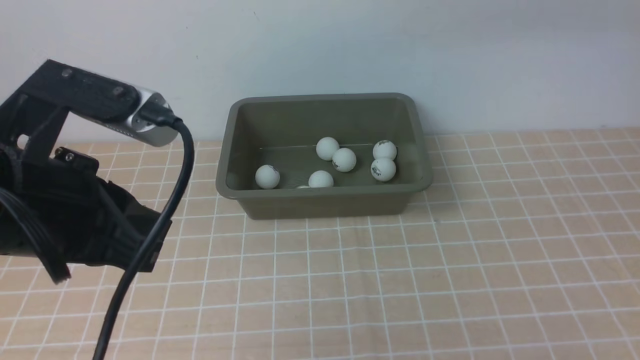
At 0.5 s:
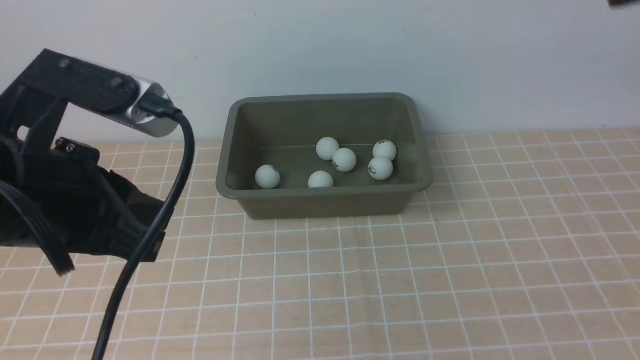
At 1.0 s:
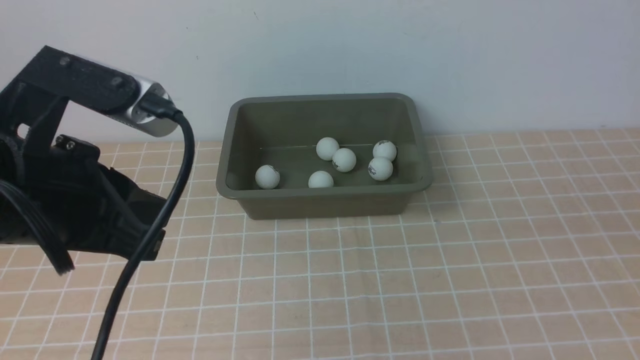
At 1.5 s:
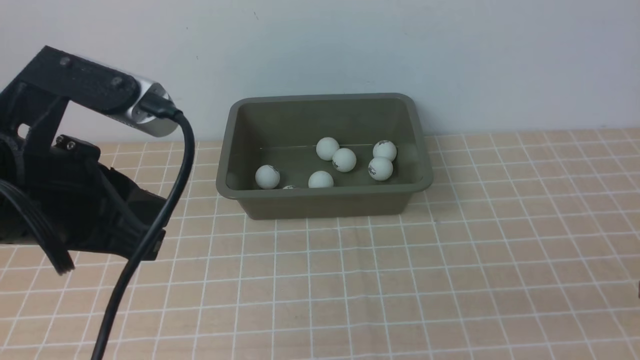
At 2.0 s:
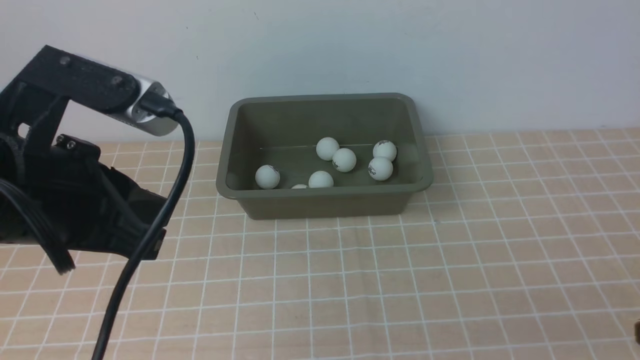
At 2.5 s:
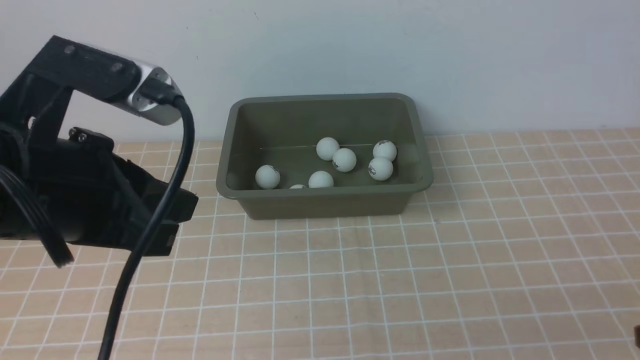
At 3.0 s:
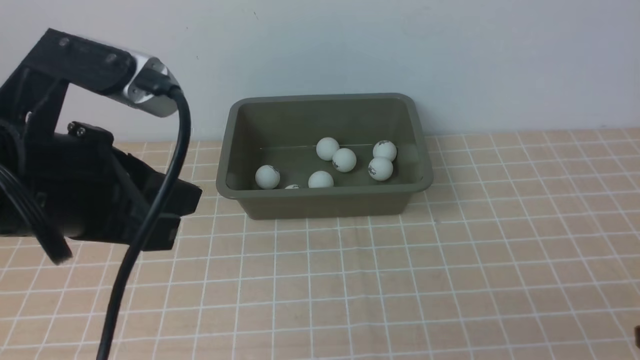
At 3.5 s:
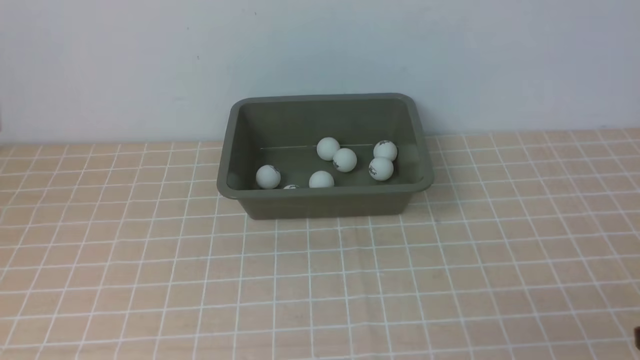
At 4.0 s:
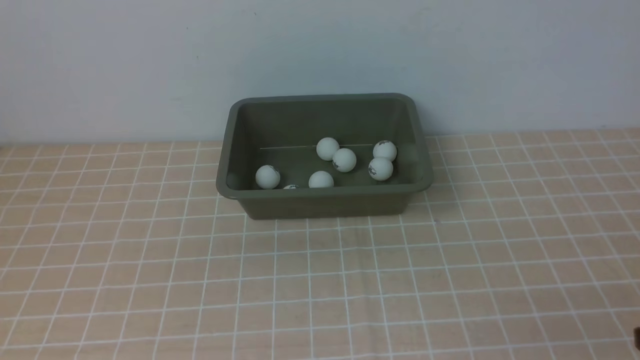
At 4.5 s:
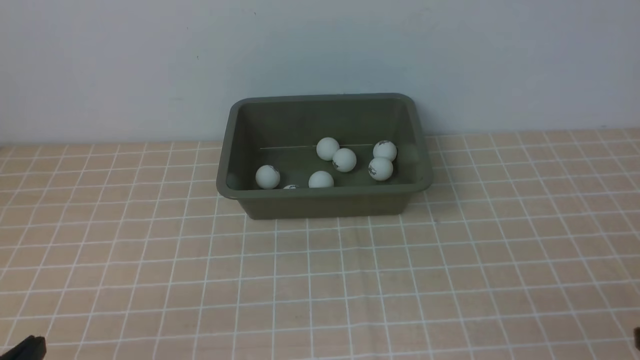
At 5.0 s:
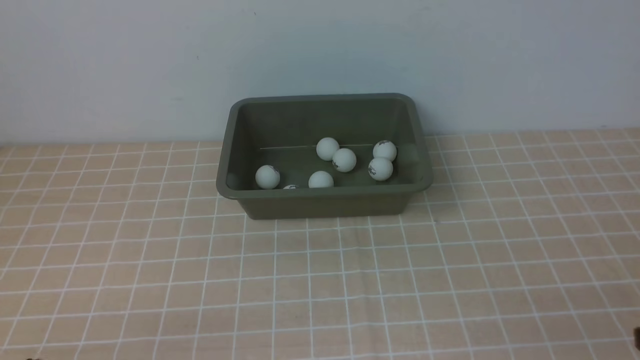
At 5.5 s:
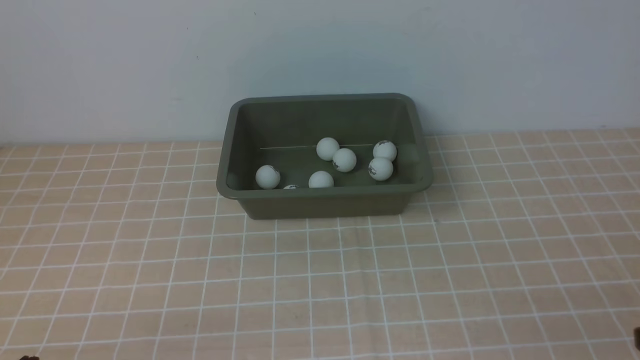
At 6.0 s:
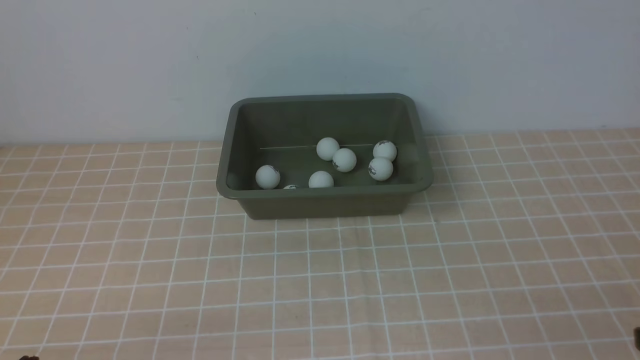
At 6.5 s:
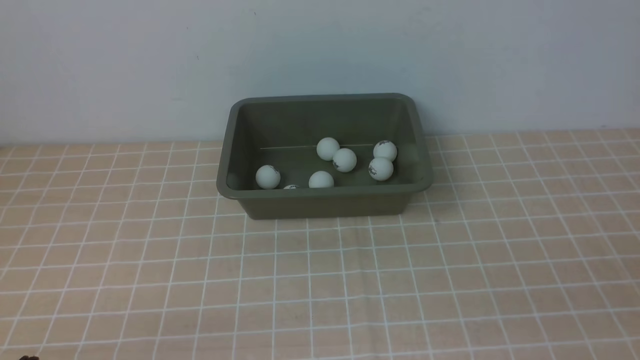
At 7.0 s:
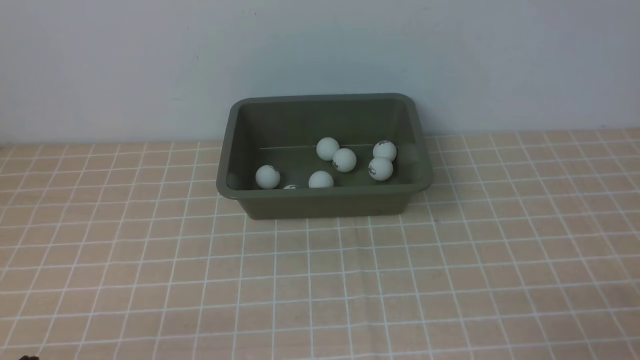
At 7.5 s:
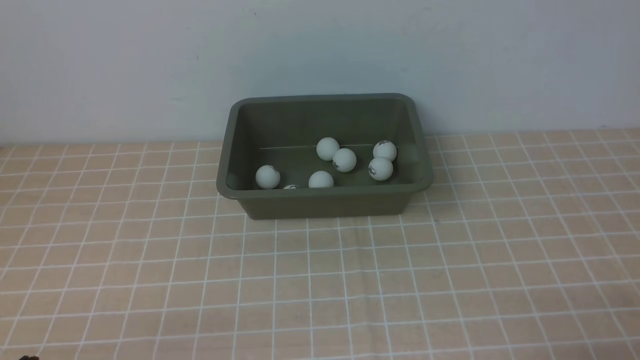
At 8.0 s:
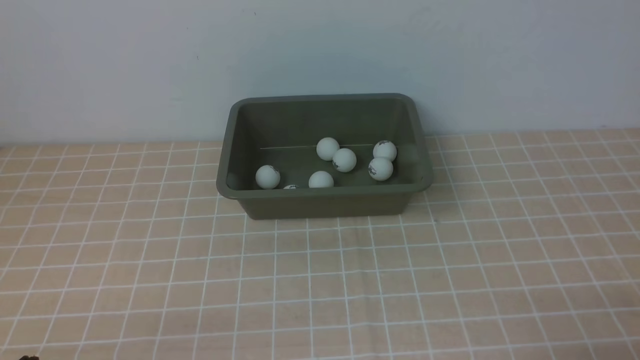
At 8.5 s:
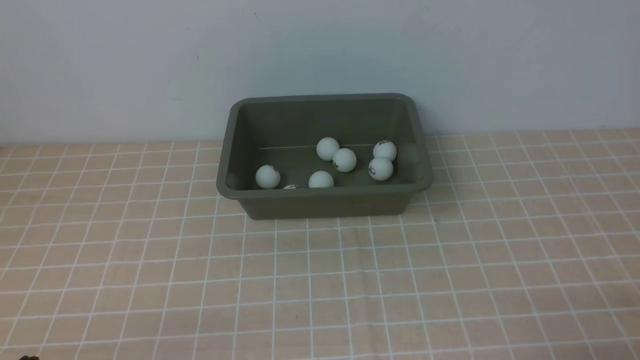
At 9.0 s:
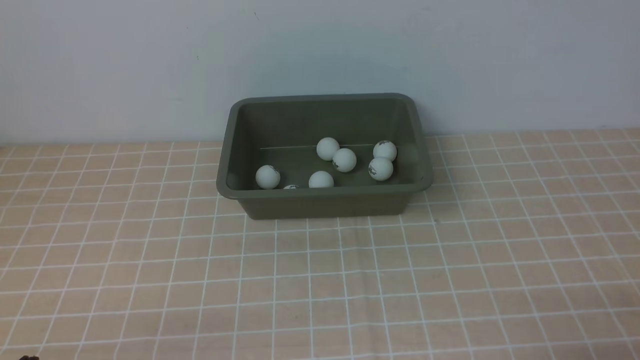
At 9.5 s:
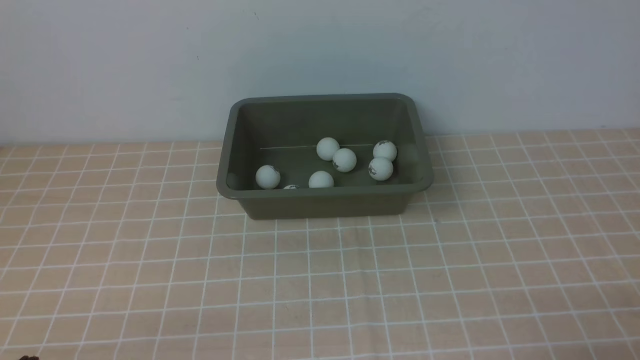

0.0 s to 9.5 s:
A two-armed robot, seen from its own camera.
2.0 to 4.0 s: The left gripper travels backward and to the left by approximately 15 cm.
7.5 to 9.5 s: Both grippers stay about where they are.

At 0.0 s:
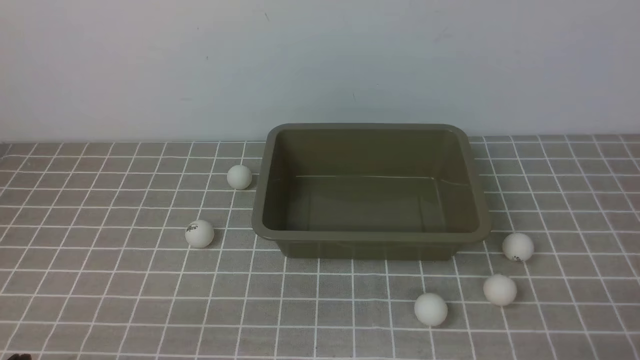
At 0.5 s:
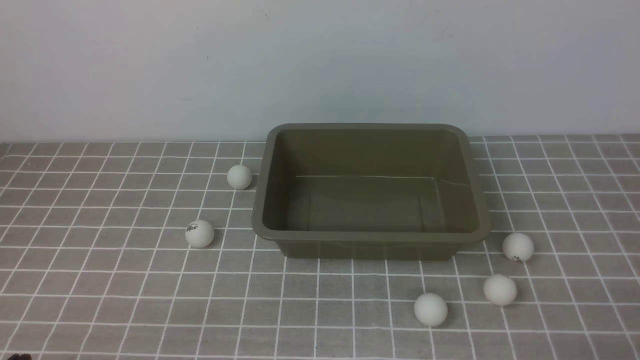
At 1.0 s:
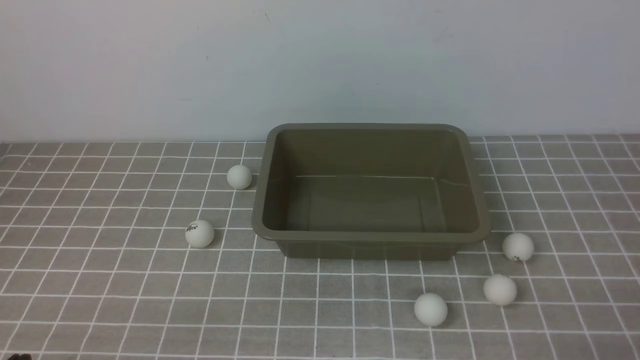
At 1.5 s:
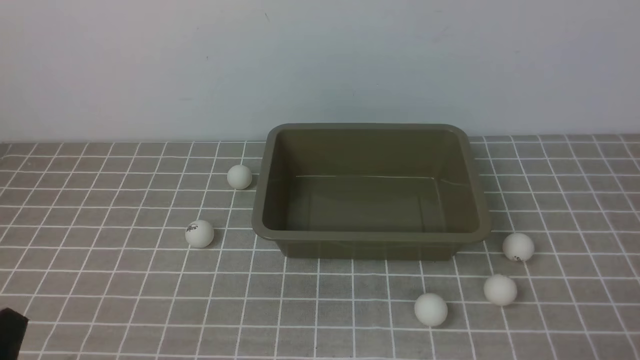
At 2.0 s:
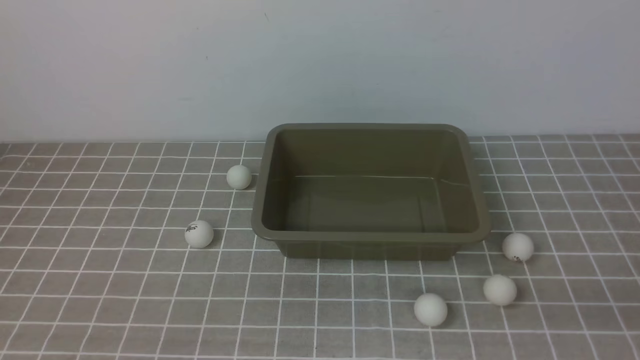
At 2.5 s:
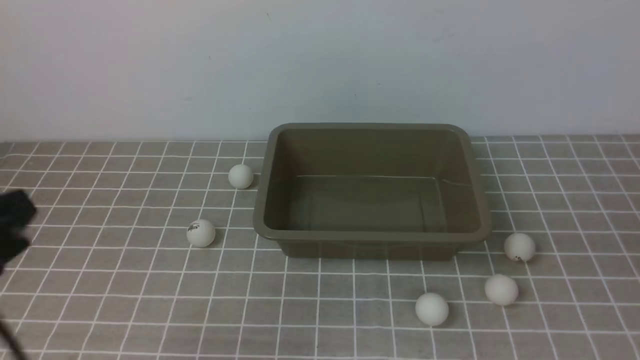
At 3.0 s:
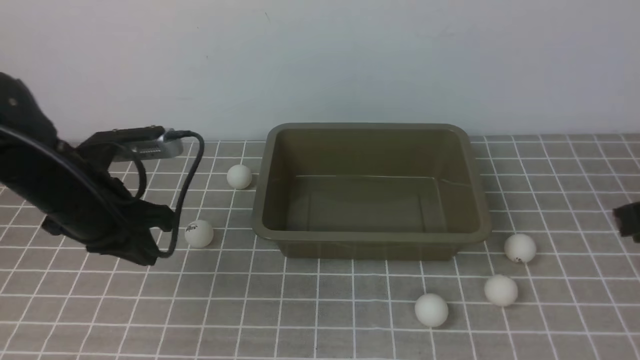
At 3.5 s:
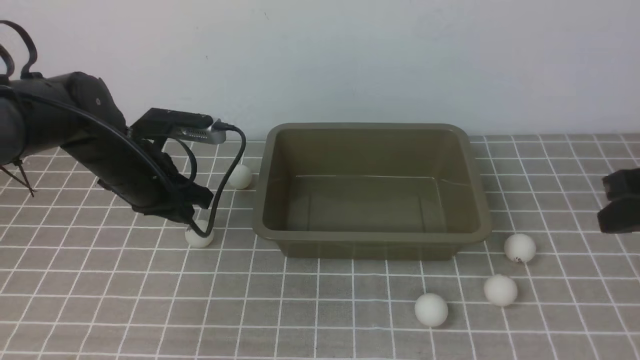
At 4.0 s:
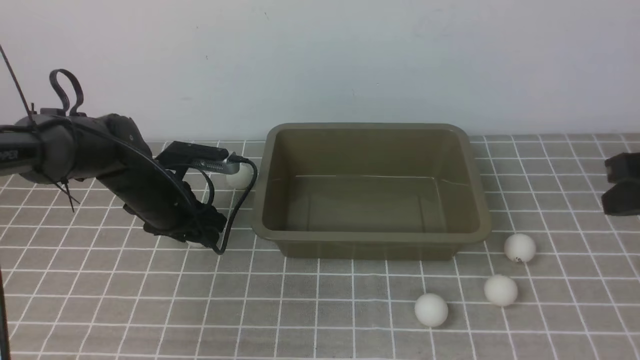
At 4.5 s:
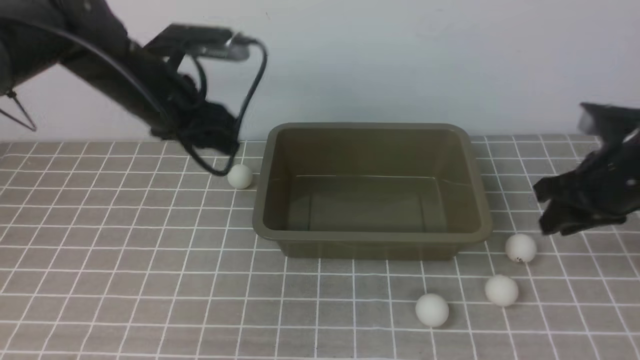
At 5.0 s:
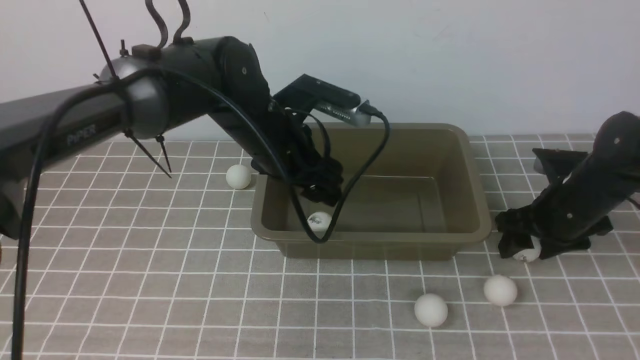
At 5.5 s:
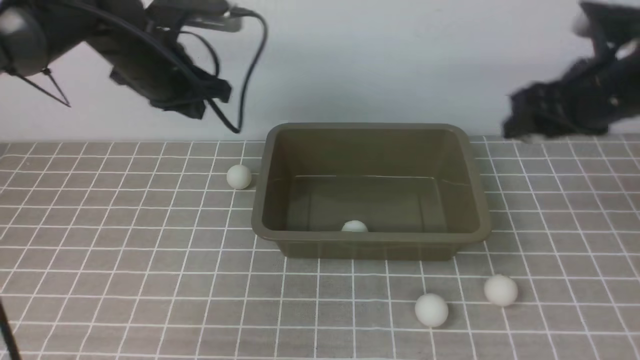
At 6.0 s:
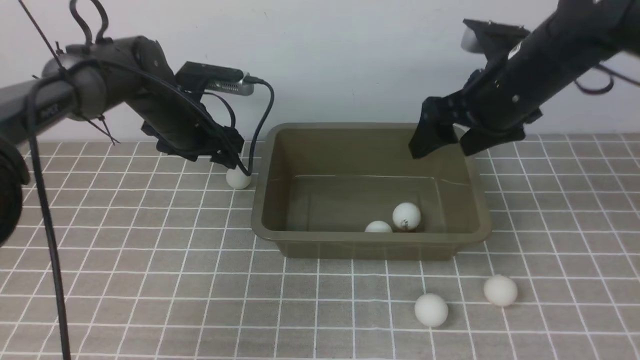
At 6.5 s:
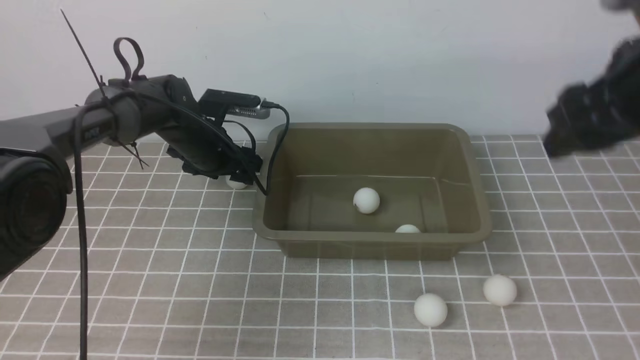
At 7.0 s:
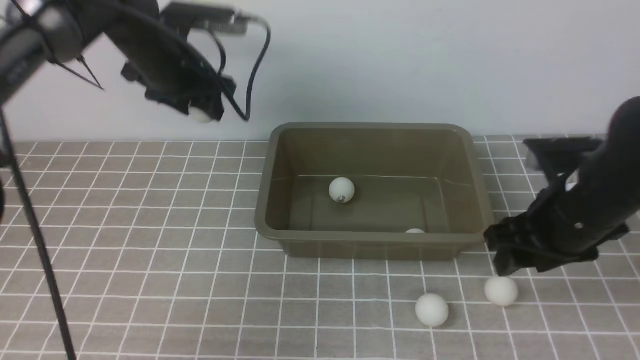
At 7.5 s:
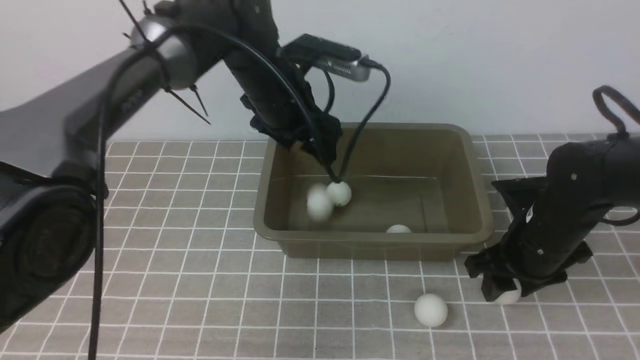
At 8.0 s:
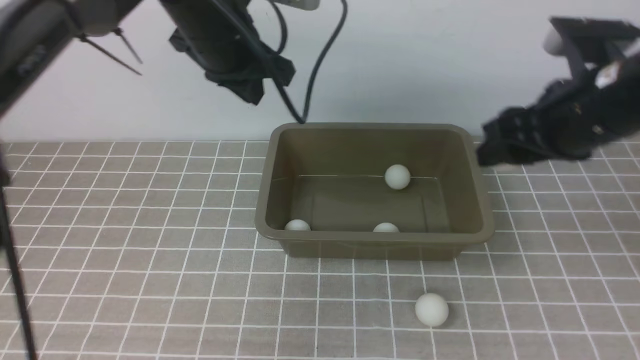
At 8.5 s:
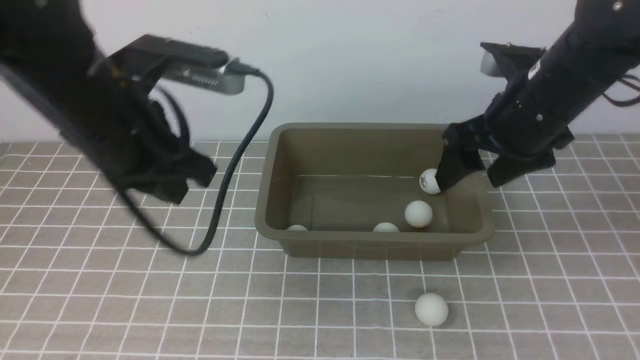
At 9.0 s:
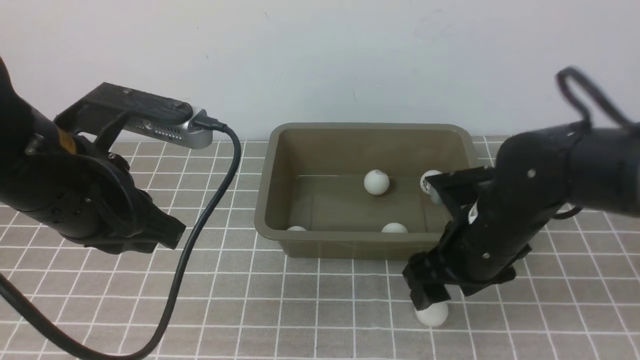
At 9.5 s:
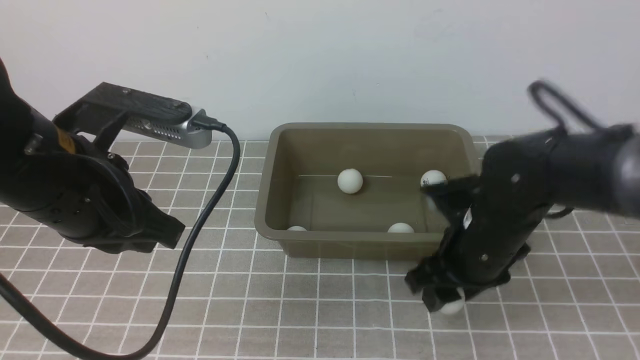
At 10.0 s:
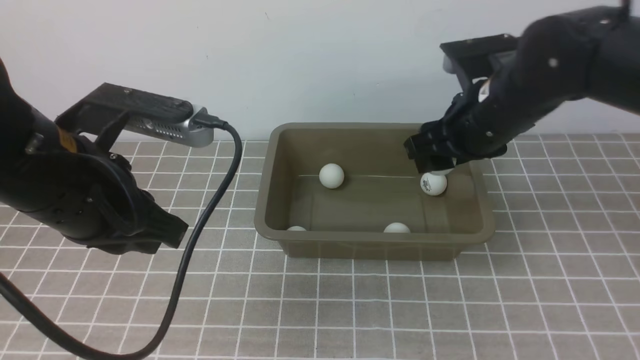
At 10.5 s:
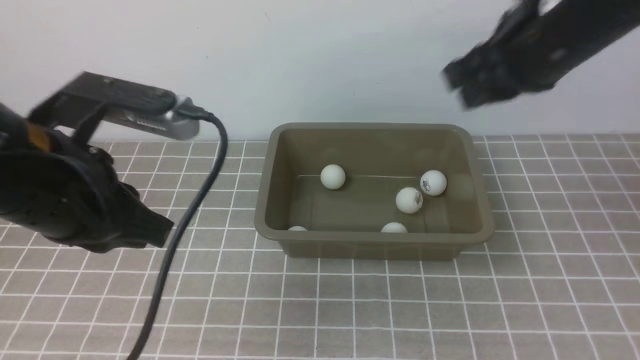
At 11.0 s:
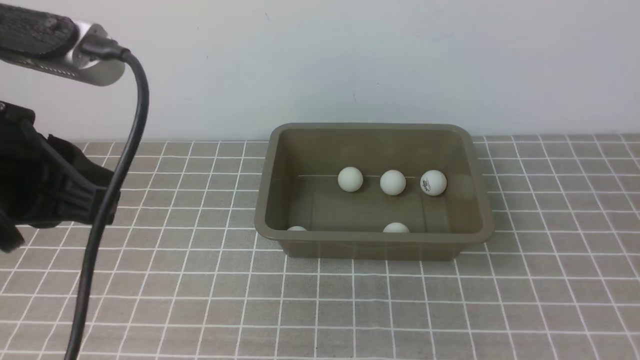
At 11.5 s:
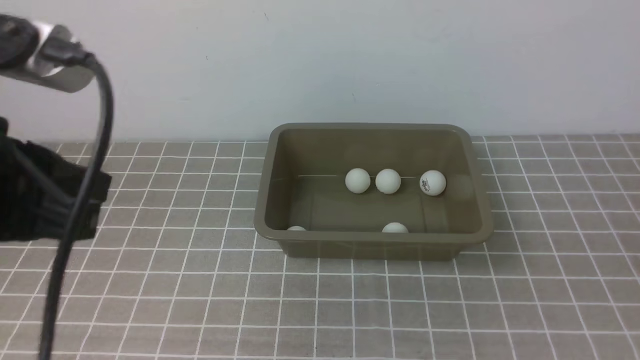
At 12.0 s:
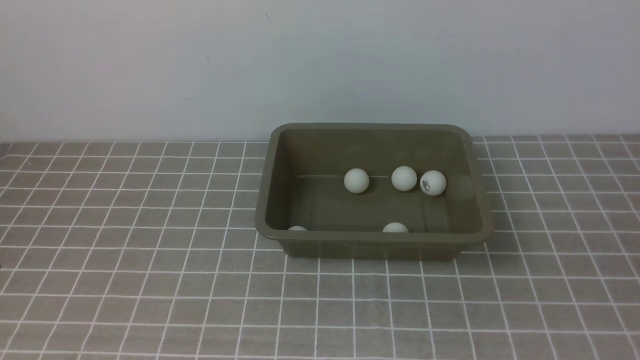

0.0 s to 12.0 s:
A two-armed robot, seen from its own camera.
Step, 0.0 to 4.5 s: use the left arm to clamp the table tennis ball closest to it.
Step, 8.5 to 9.5 s: use the right arm to clamp the table tennis ball closest to it.
2.0 to 4.0 s: The left gripper is displaced forward by some 35 cm, and opens up, while the right gripper heads forward and upward, covering about 25 cm.
4.0 to 6.0 s: The right gripper heads to the left and forward, covering some 15 cm, moves approximately 15 cm downward and comes back, and opens its fingers. Meanwhile the left gripper heads forward, covering some 10 cm, moves about 15 cm to the right and comes back, and closes, then opens again.
6.0 to 8.0 s: The left gripper is displaced upward, to the right and backward by about 15 cm, and closes its fingers. Meanwhile the right gripper travels backward by some 5 cm, and reaches about 15 cm downward, then returns.
8.0 to 10.0 s: The right gripper shifts roughly 5 cm to the left, and travels downward and back again, approximately 10 cm each way. Meanwhile the left gripper moves backward, approximately 20 cm.
10.0 to 12.0 s: The left gripper is displaced backward by approximately 20 cm, while the right gripper shifts about 35 cm backward and to the right, and closes.
